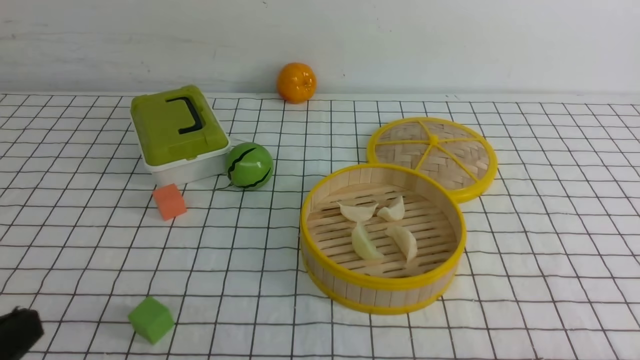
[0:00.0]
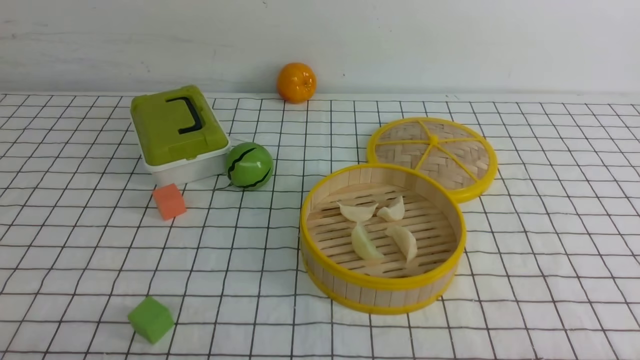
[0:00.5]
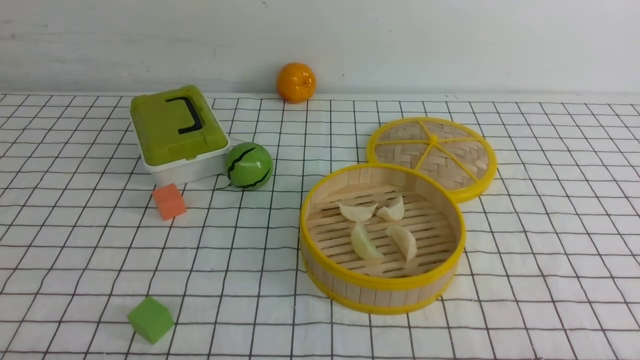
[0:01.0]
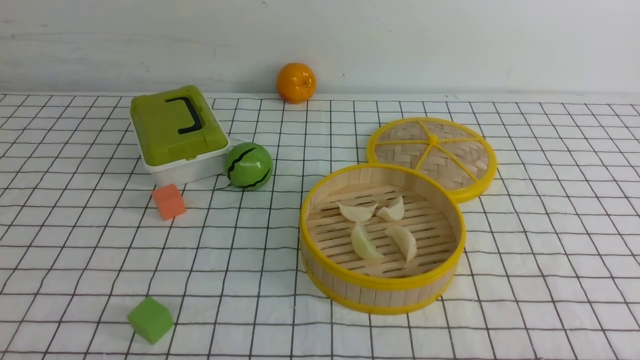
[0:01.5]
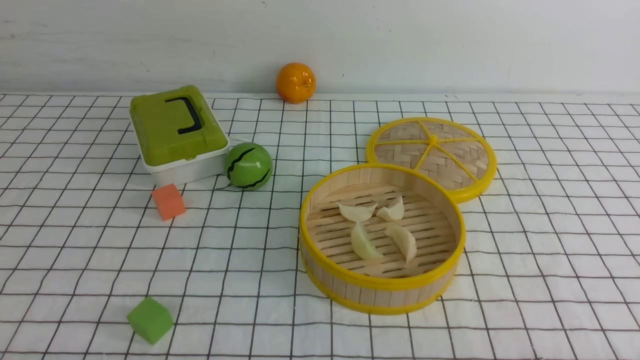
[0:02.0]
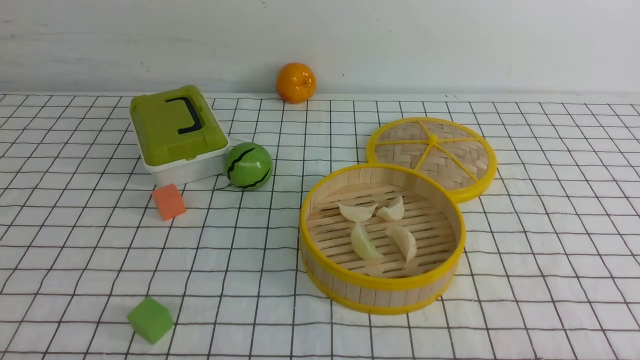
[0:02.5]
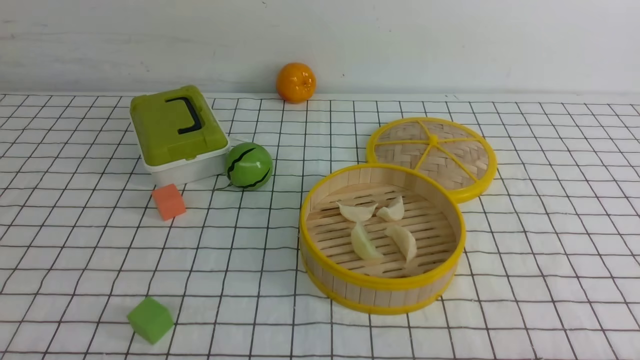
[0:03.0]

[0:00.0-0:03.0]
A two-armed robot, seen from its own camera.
Task of the whole recording: put the dumplings into the steamer on the table with the white tablecloth.
0:00.0 to 0:01.5: The left gripper heads downward, covering about 10 cm.
0:01.5 to 0:03.0: The two grippers keep their place.

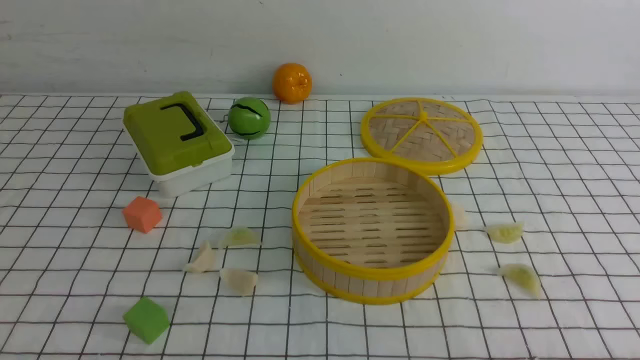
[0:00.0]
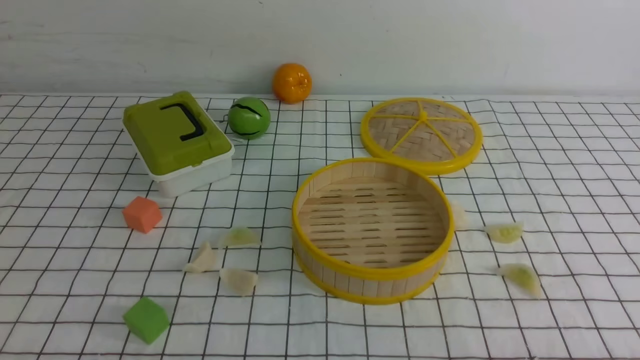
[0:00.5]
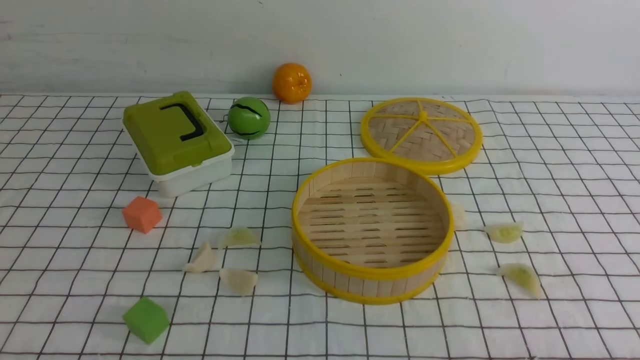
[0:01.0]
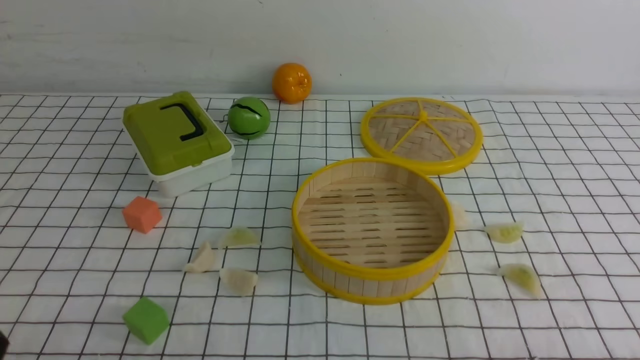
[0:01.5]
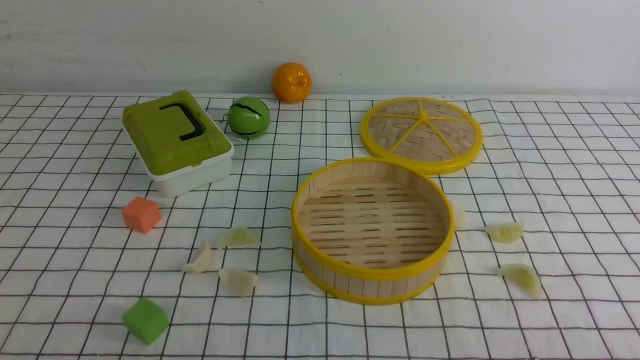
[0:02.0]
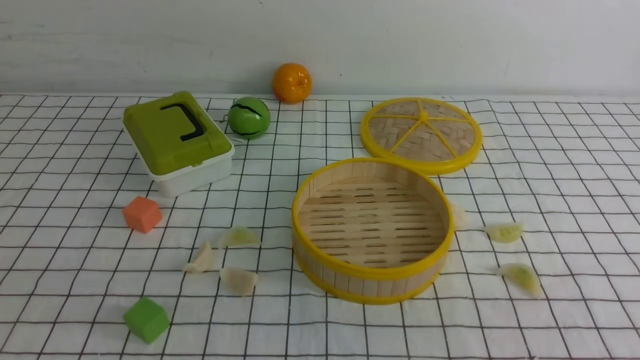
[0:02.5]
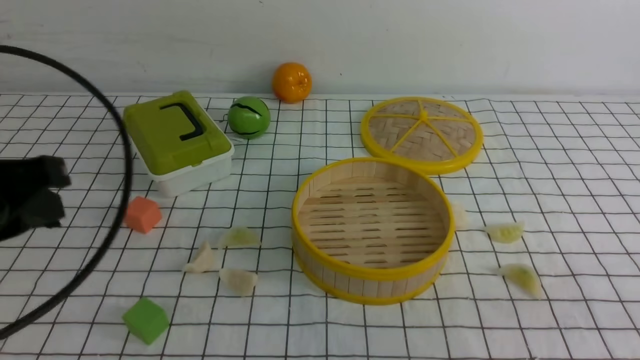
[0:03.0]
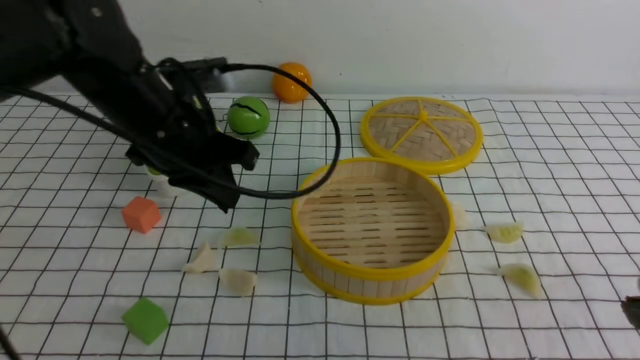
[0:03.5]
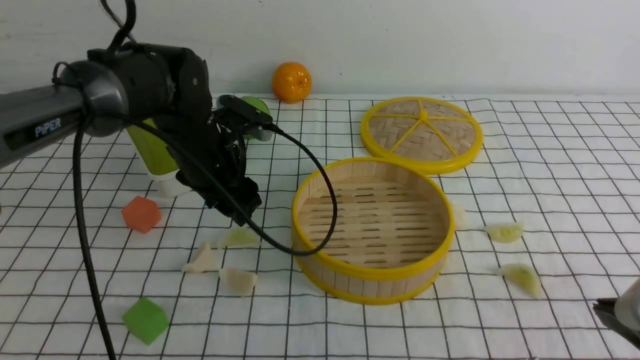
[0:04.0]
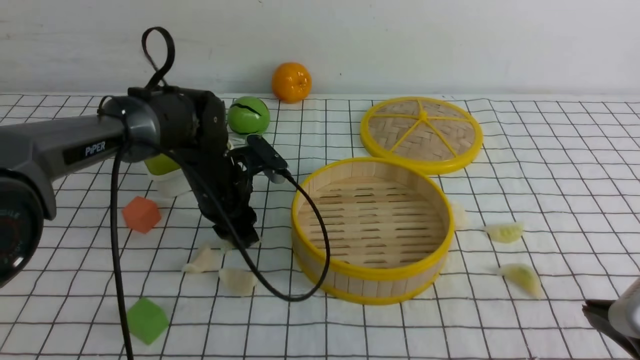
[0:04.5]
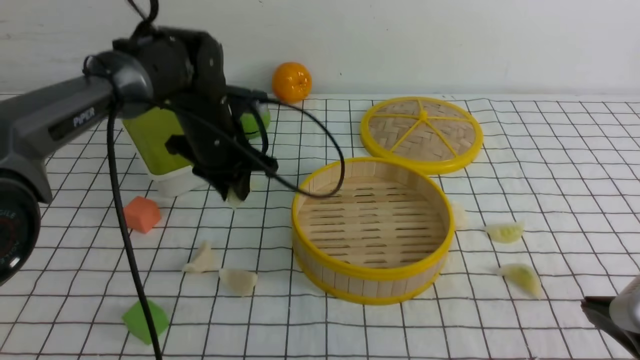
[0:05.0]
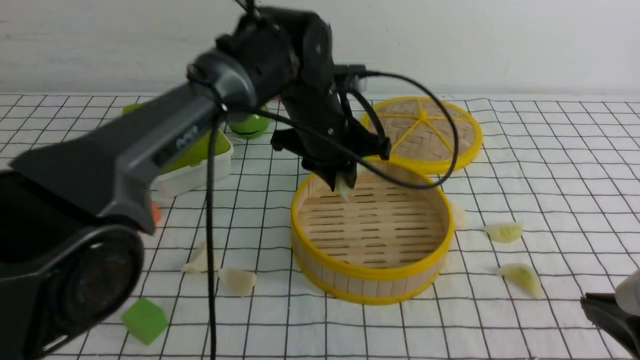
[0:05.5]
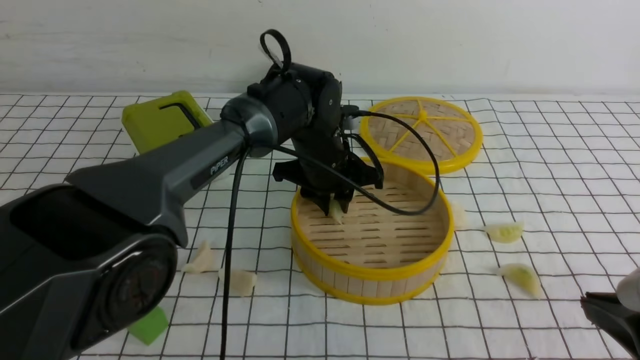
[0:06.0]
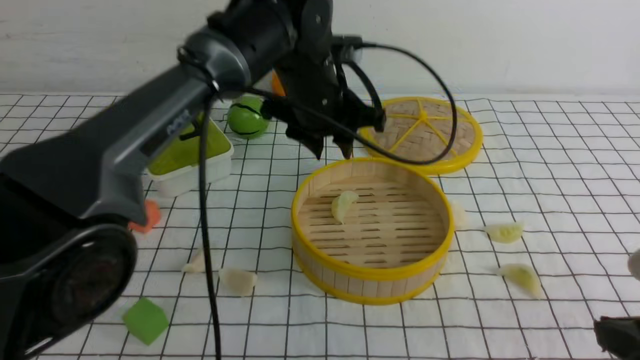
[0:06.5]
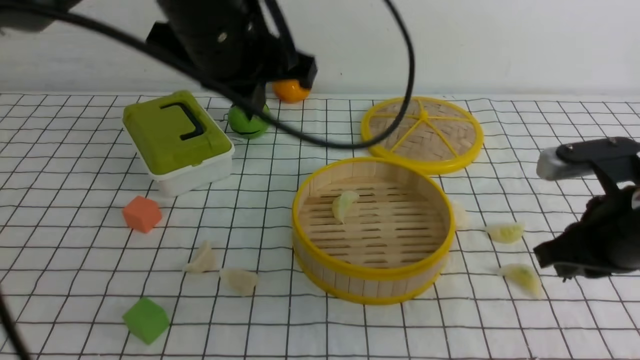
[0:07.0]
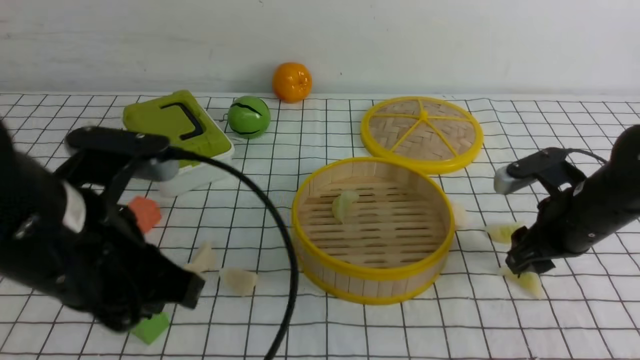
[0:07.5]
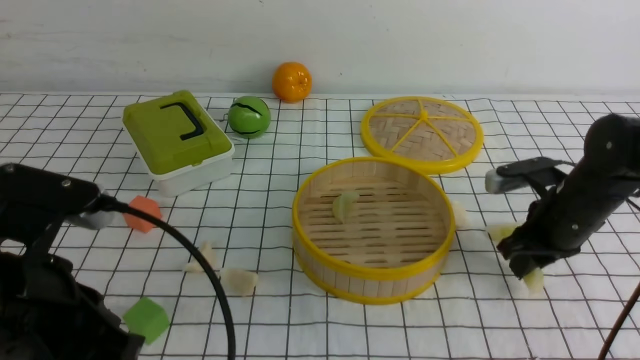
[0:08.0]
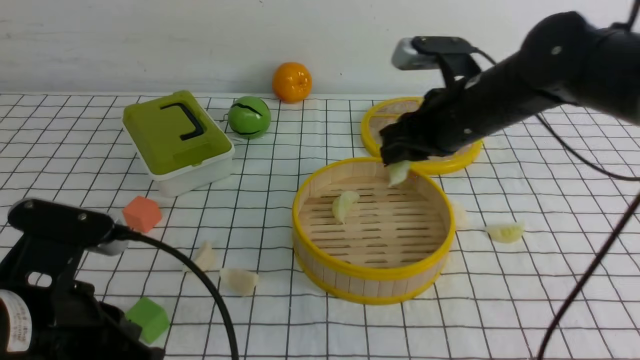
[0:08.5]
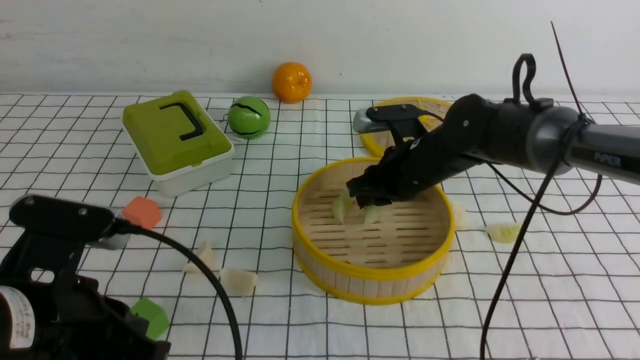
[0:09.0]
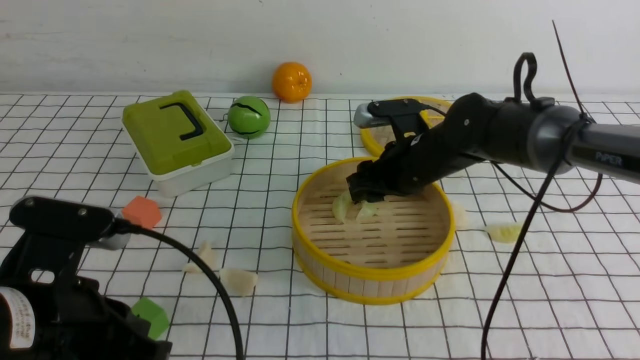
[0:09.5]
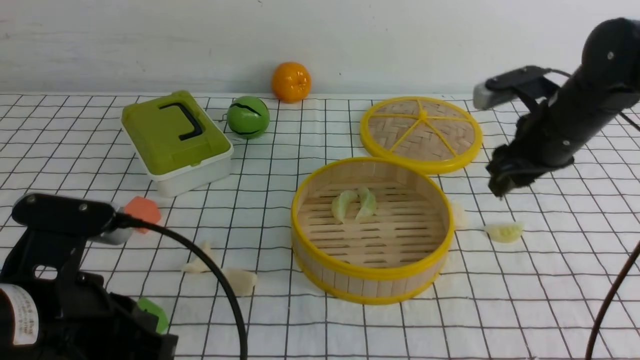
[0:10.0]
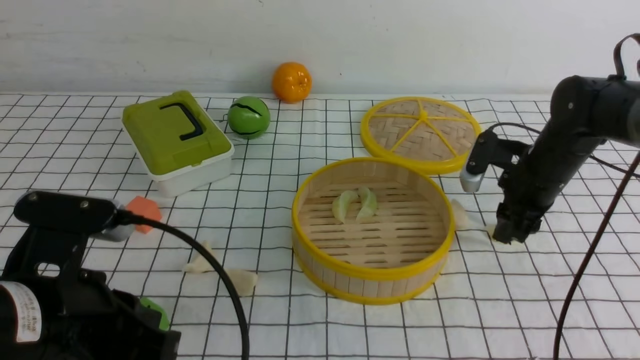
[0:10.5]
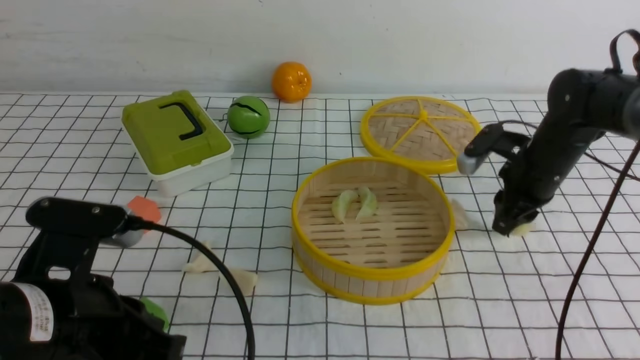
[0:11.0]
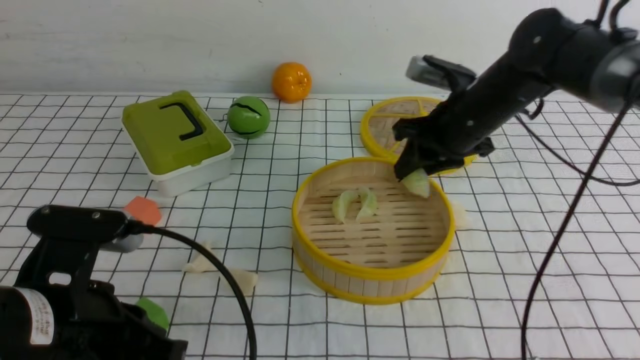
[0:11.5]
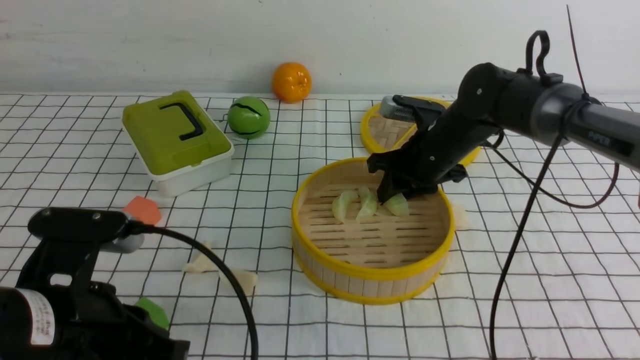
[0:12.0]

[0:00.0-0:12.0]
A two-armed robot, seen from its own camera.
Task of the whole recording: put the dumplings into the steamer on the table with the white tablecloth.
Step, 0:00.0 to 0:05.0: use the left arm to grab a dumpling.
Step, 0:05.5 to 0:06.0: use the left arm to put the dumpling into the steamer.
Step, 0:06.5 to 0:08.0: use the right arm to grab a dumpling.
Step, 0:08.5 to 0:09.5: use the right arm to put the dumpling into the steamer.
Step, 0:10.0 to 0:11.0: use the right arm to grab a dumpling.
0:02.0 to 0:04.0: The right gripper travels forward and to the left by roughly 10 cm, and closes its fingers. Meanwhile the left gripper travels forward by roughly 35 cm, and opens its fingers.
0:04.0 to 0:06.0: The left gripper heads to the right, covering about 15 cm.
0:06.0 to 0:08.0: The left gripper moves backward and to the left, about 35 cm, and closes up, while the right gripper goes approximately 25 cm forward, and opens up.
0:08.0 to 0:10.0: The right gripper goes to the left and returns, some 15 cm each way, and opens its fingers.
0:10.0 to 0:12.0: The right gripper goes approximately 10 cm to the left.

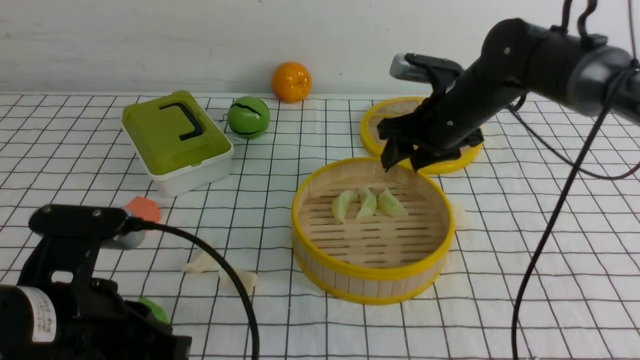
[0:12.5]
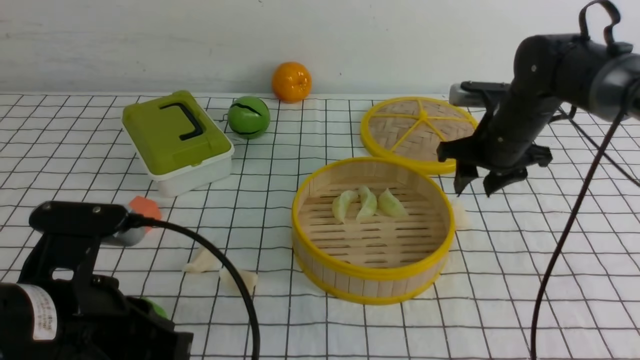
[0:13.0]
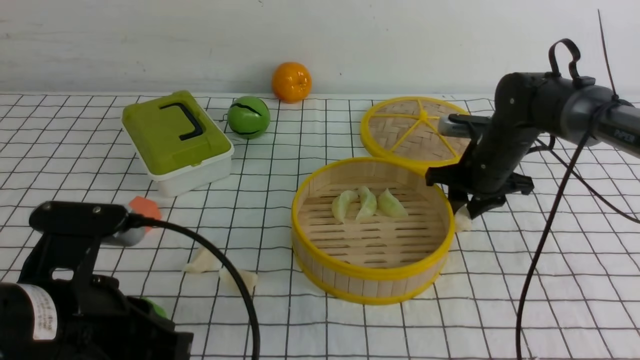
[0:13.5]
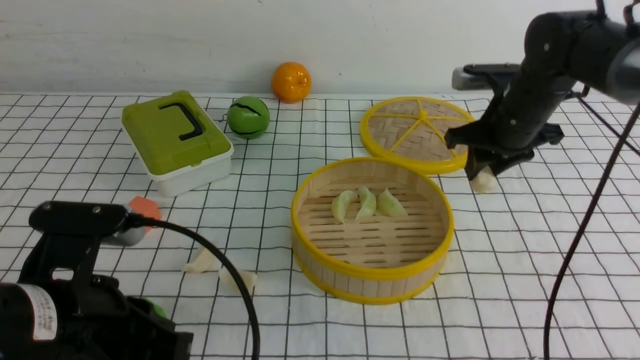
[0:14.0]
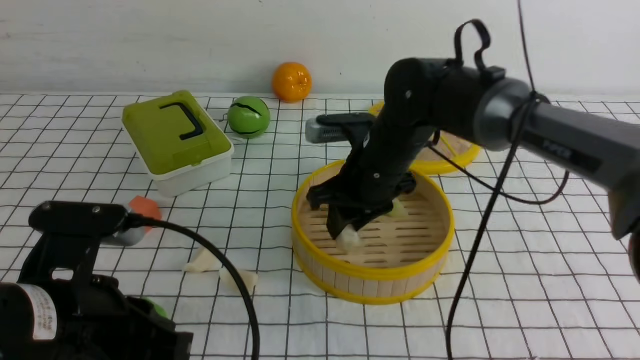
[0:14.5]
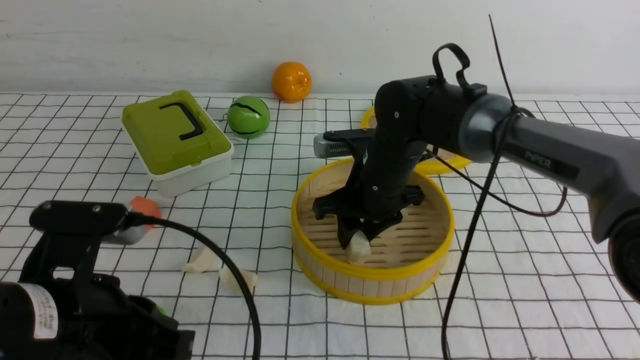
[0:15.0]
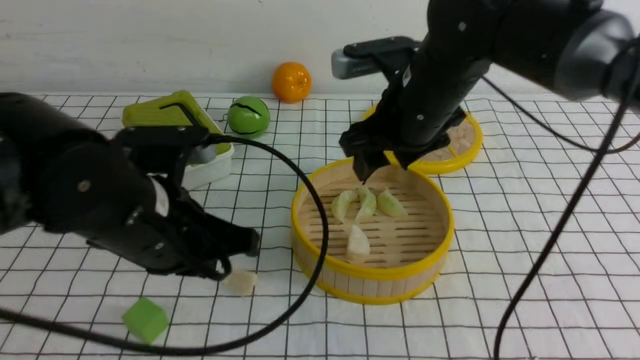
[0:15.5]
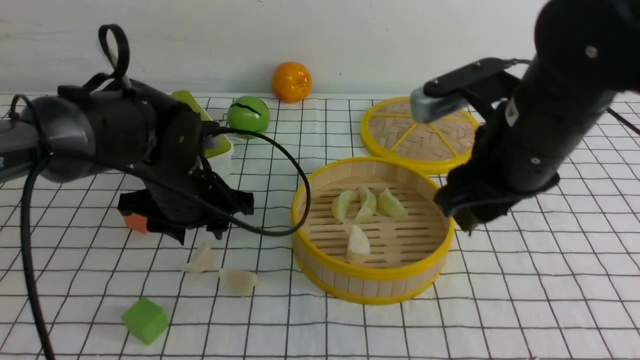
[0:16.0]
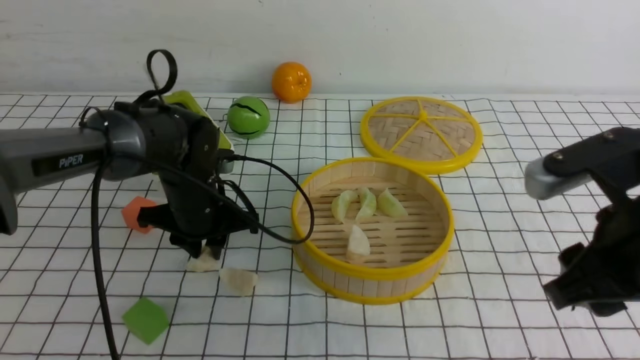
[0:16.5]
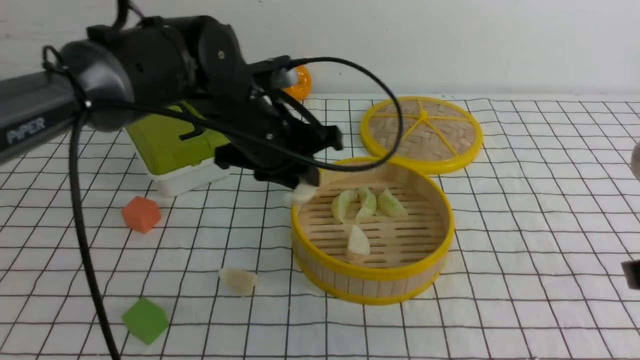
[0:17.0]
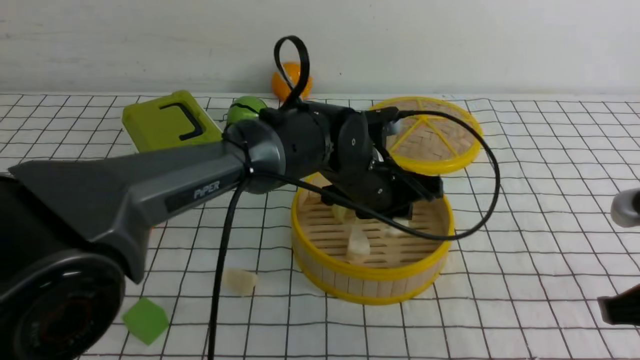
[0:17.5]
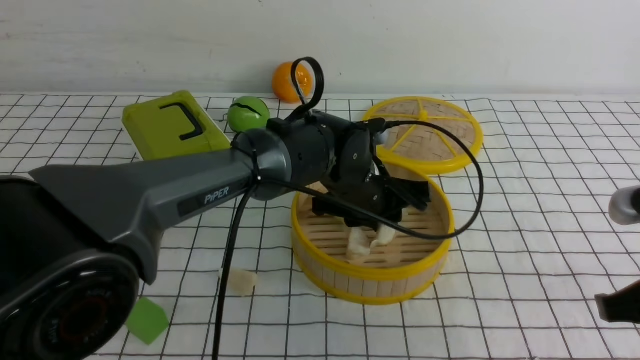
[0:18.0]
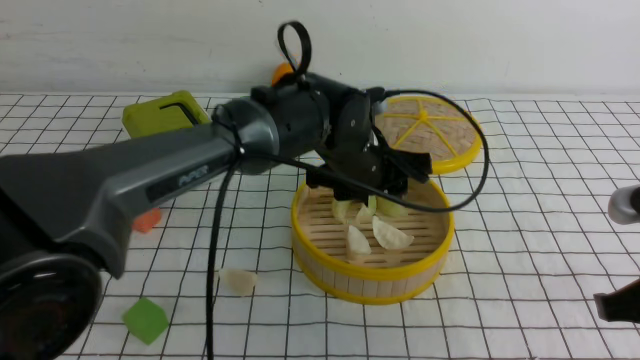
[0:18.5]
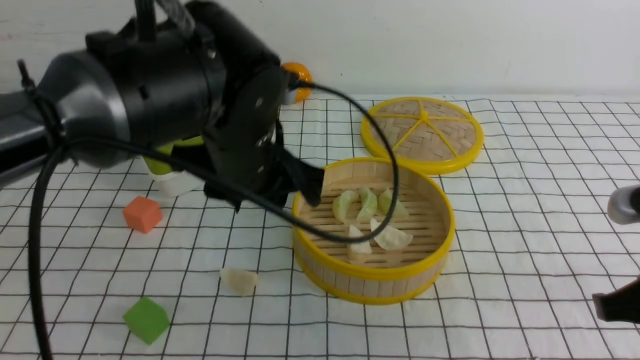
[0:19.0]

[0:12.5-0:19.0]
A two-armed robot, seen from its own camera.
Task of the whole recording: put the dumplings into the steamer on the table with the white tablecloth.
Step, 0:12.5 to 0:14.0: use the right arm to grab a dumpling.
Step, 0:14.5 to 0:15.0: use the right arm to put the dumpling into the steamer.
Step, 0:15.5 to 0:16.5: use the left arm to grab a dumpling.
Step, 0:17.0 to 0:18.5: use the left arm to put the dumpling into the steamer.
0:12.5 to 0:14.5: The right gripper heads to the left, covering some 10 cm.
0:14.5 to 0:17.0: The right gripper heads backward and to the right, covering approximately 30 cm, and opens, then closes again. The left gripper goes some 25 cm forward and to the right, and opens, then closes once more.
0:17.0 to 0:19.0: The left gripper goes about 5 cm backward, and moves some 10 cm to the right and comes back. The right gripper closes up.
